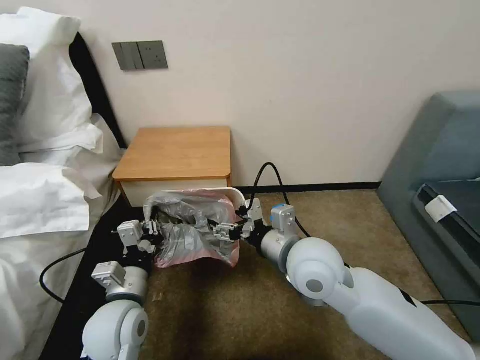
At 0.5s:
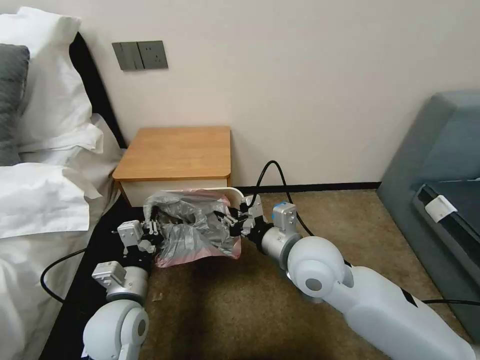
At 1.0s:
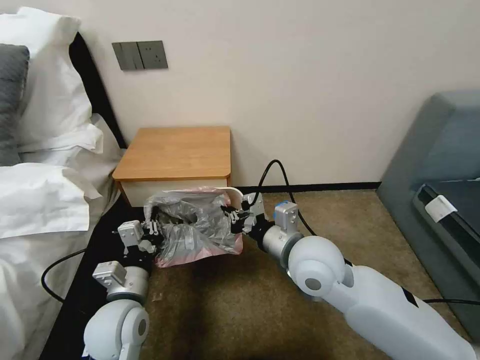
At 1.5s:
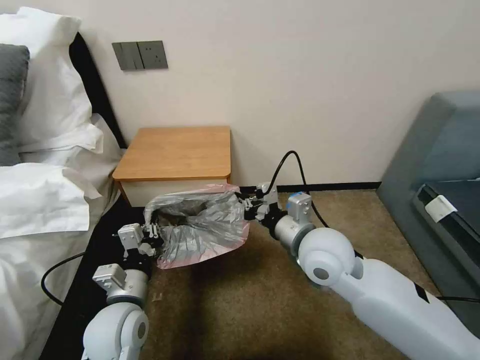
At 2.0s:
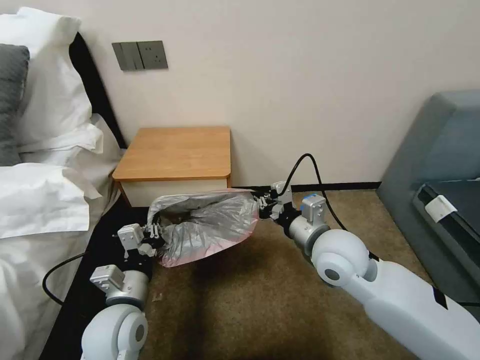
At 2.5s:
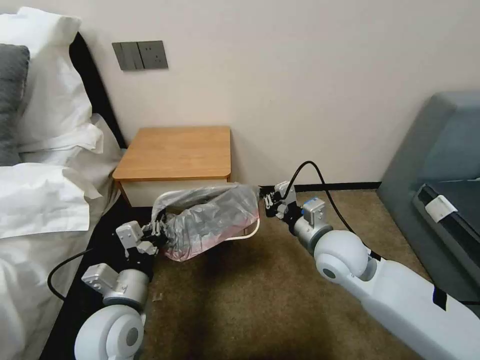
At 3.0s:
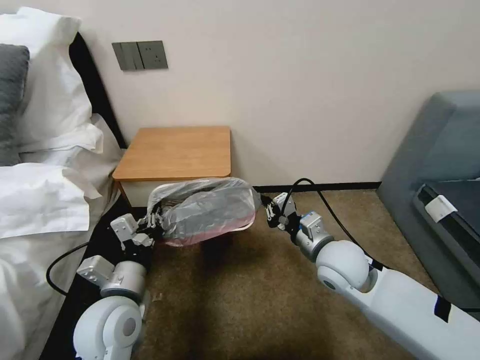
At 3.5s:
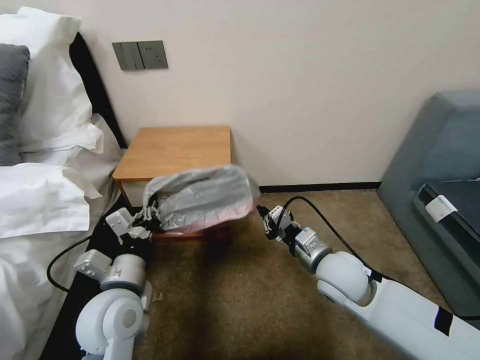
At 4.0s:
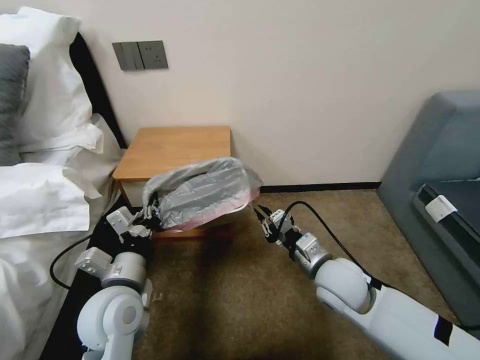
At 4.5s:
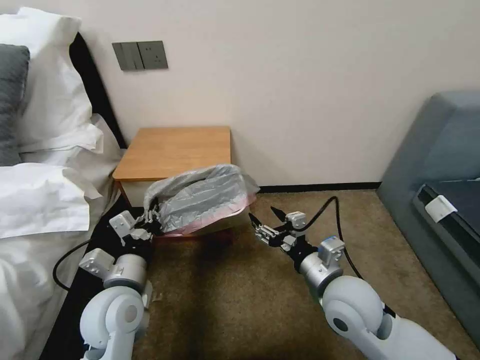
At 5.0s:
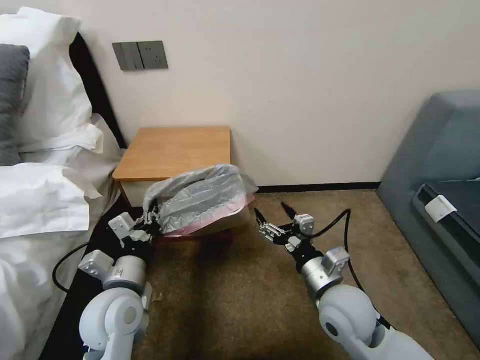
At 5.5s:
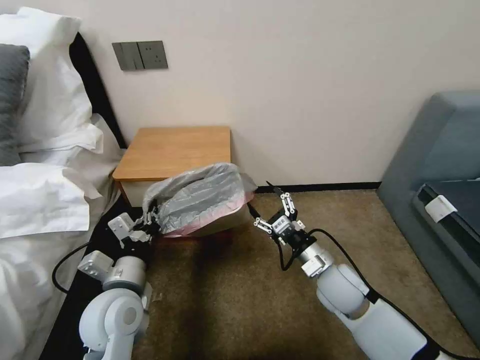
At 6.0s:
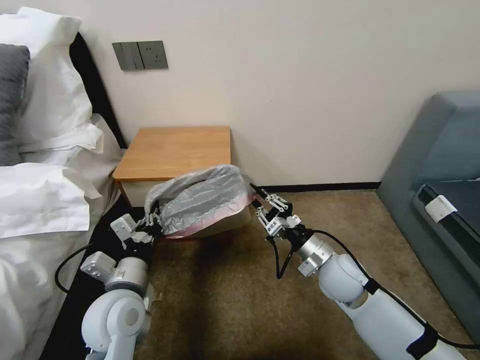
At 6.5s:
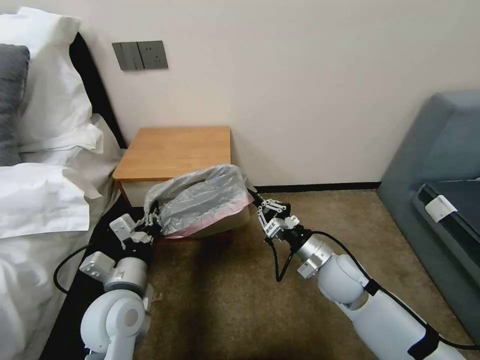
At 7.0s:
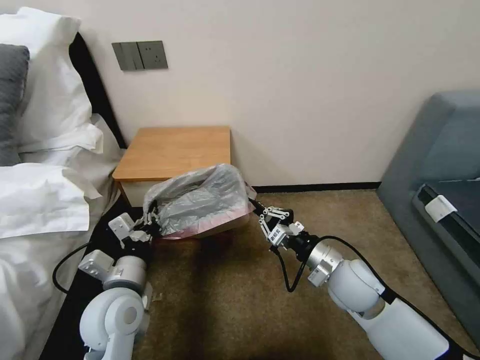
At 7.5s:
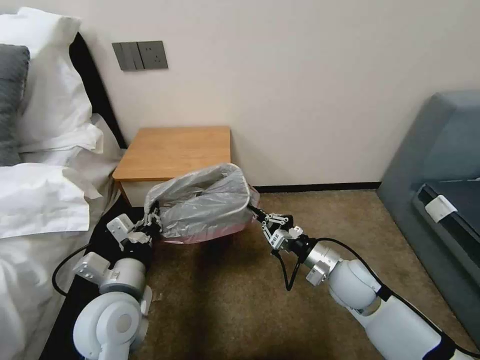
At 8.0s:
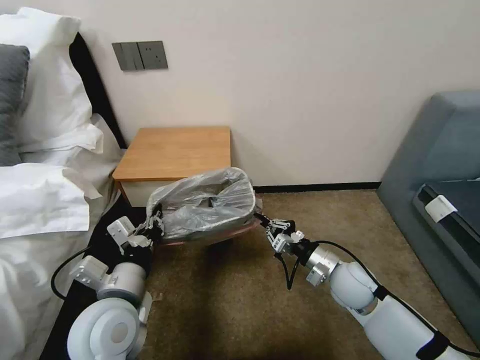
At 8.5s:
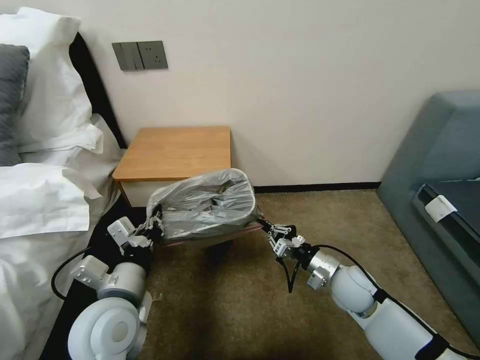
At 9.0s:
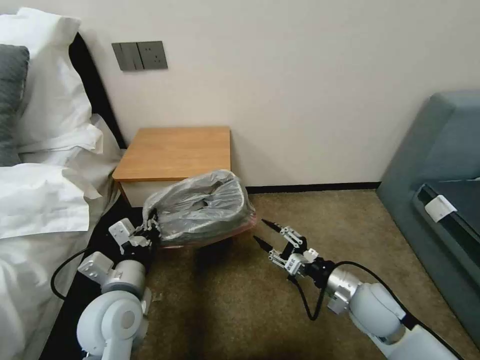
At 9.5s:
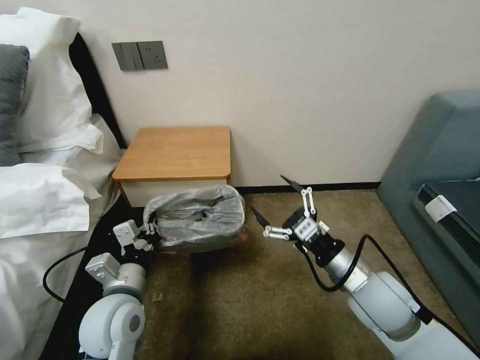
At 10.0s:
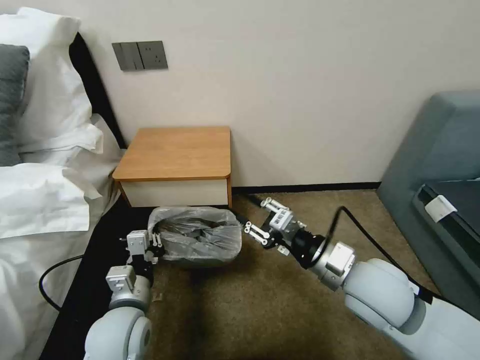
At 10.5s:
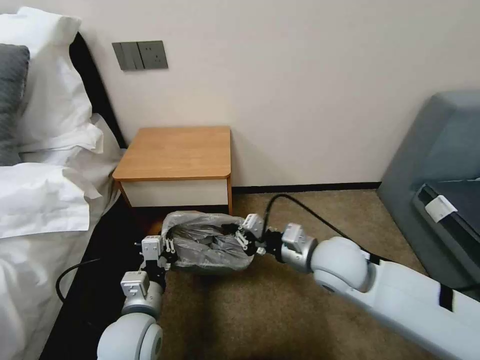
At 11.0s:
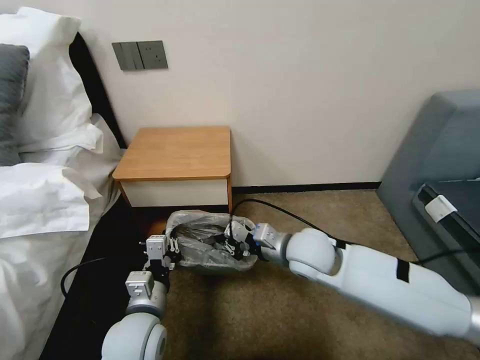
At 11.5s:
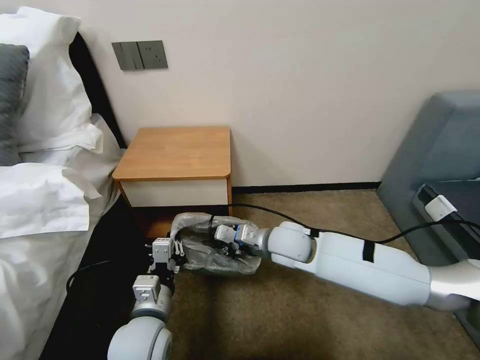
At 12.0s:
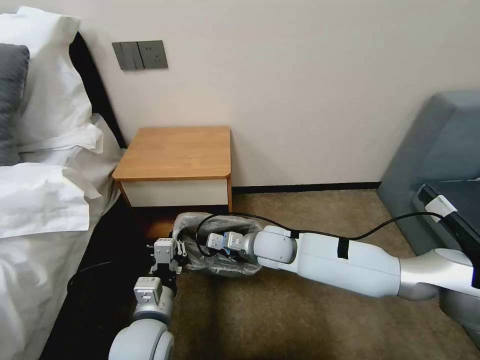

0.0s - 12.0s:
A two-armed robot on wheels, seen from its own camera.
Task of the whole recording: Pick up the garbage bag from the table and place it over the trash can.
0.0s - 2.0s: The right gripper is displaced to the right by roughly 5 cm, and closes.
2.0s - 4.0s: The right gripper heads downward, covering roughly 10 cm.
4.0s - 6.0s: The right gripper moves roughly 5 cm backward and comes back, and opens and closes again.
6.0s - 8.0s: The grippers stay close to where they were, moving slightly.
8.0s - 10.0s: The right gripper shifts about 15 cm upward and backward, and opens its fingers. Meanwhile the left gripper travels downward by approximately 5 cm.
10.0s - 12.0s: The left gripper moves approximately 5 cm. The right gripper goes some 25 cm forward, to the left and downward, and closes up.

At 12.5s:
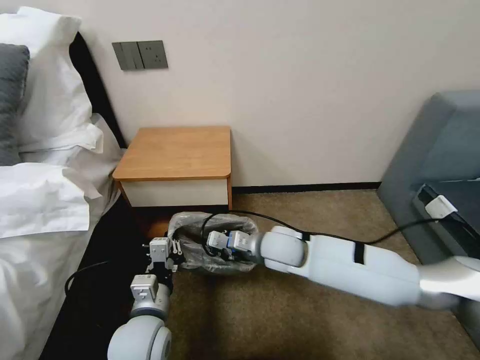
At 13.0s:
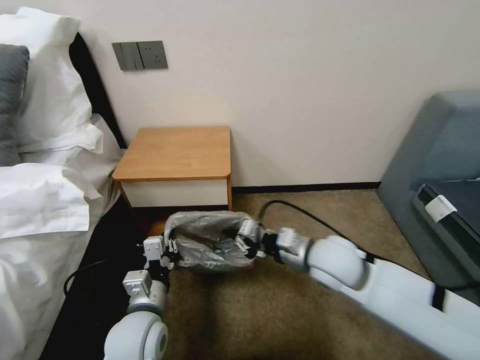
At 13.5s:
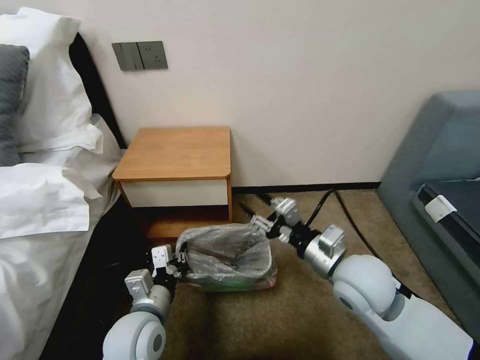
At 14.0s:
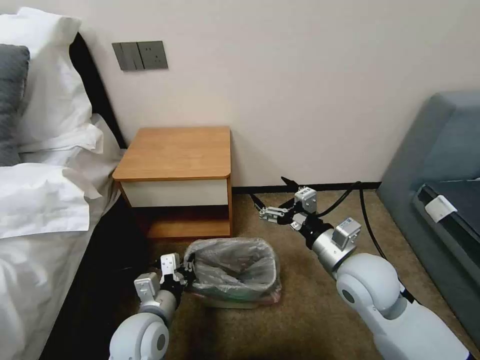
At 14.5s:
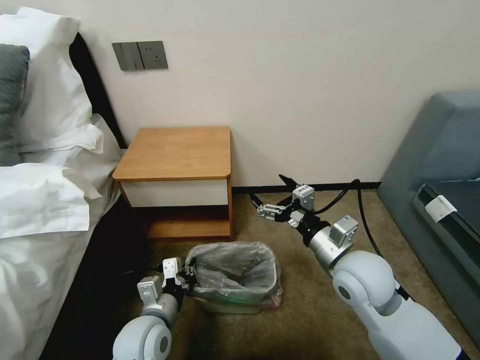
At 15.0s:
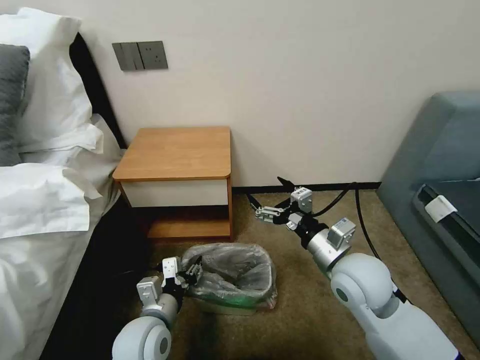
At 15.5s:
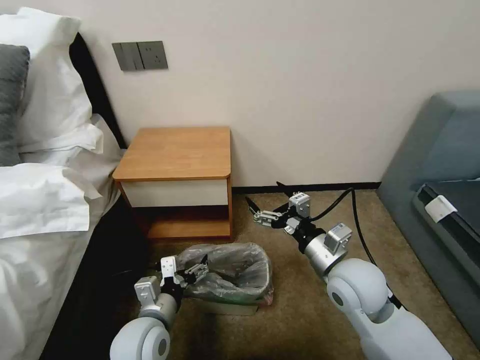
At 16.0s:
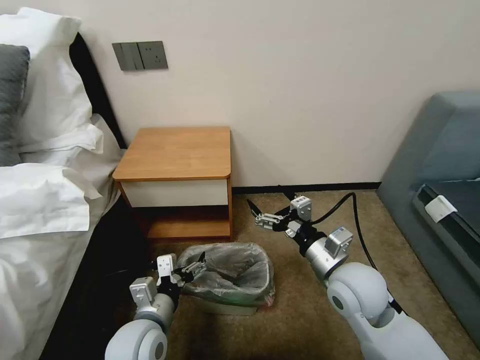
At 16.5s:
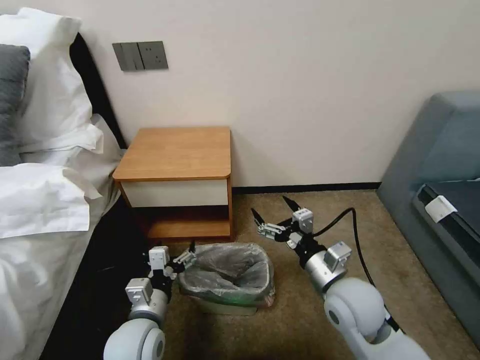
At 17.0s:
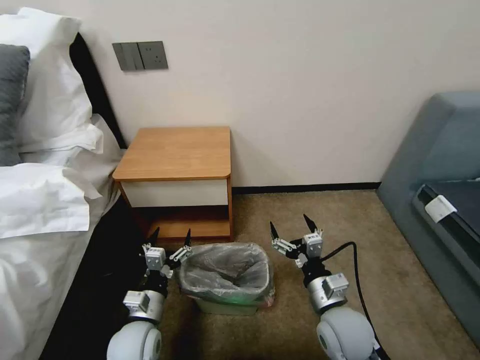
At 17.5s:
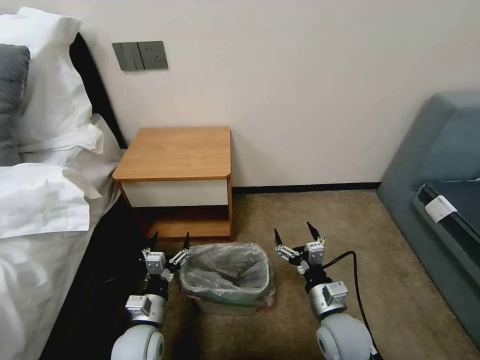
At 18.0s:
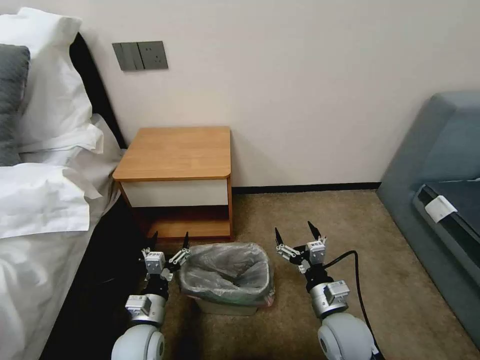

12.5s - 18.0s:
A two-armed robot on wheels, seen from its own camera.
Task of the whole recording: Pick up the garbage bag from the table and place it over the trash can.
12.5s - 14.5s: The right gripper goes about 15 cm to the right, backward and upward, and opens up.
14.5s - 16.0s: The left gripper opens its fingers.
16.0s - 18.0s: The left gripper goes about 10 cm downward. Meanwhile the right gripper goes approximately 15 cm downward and backward.

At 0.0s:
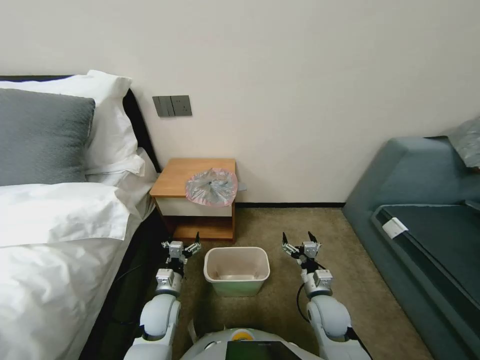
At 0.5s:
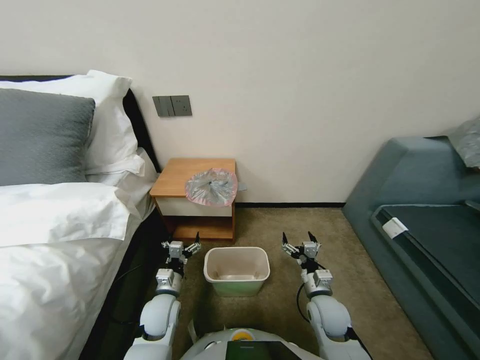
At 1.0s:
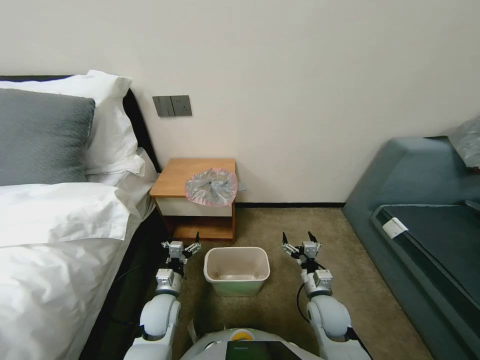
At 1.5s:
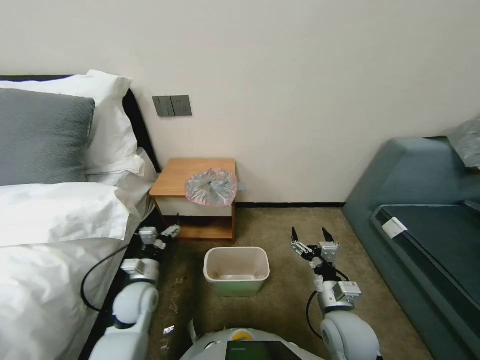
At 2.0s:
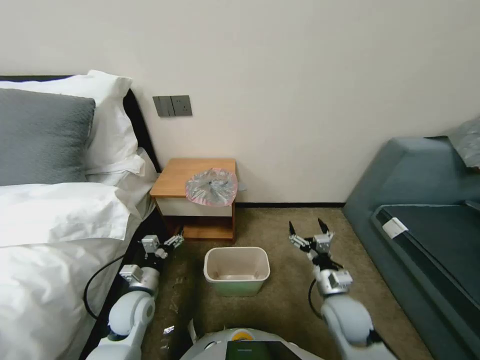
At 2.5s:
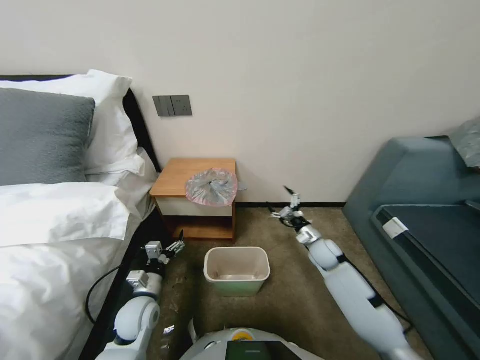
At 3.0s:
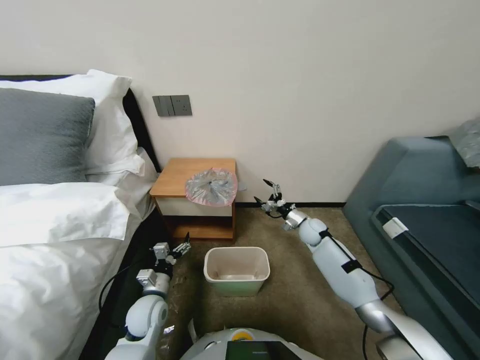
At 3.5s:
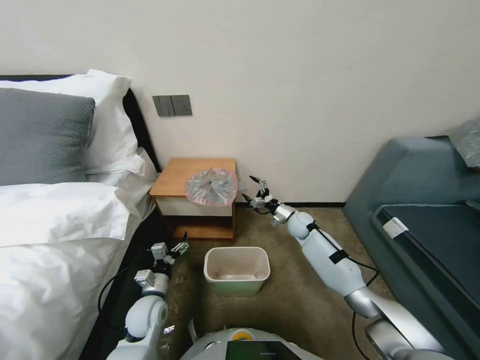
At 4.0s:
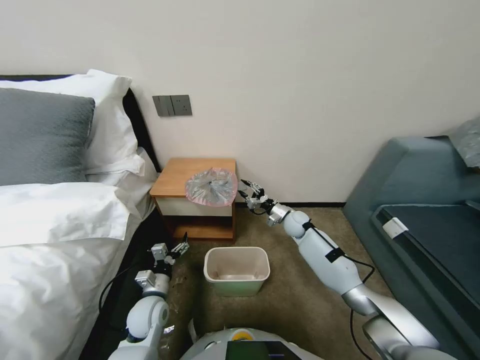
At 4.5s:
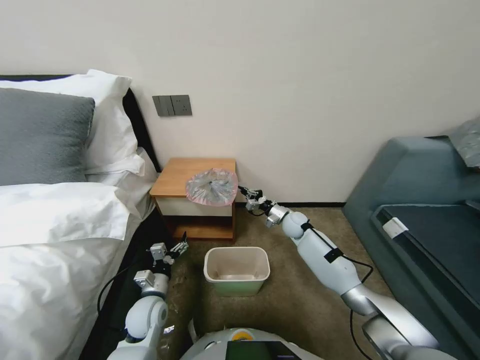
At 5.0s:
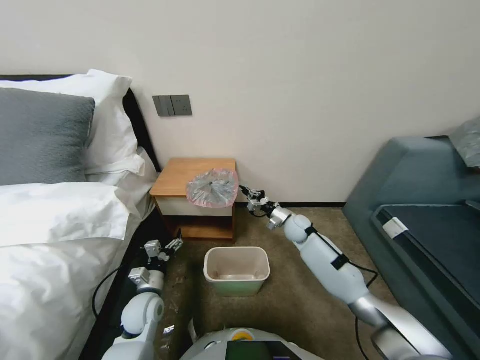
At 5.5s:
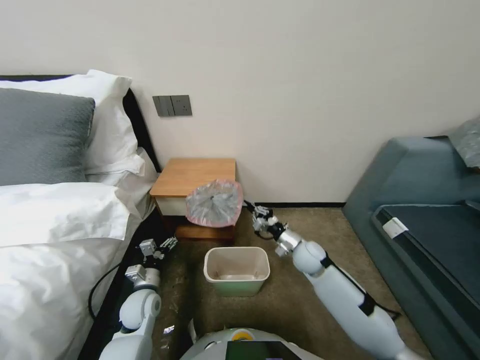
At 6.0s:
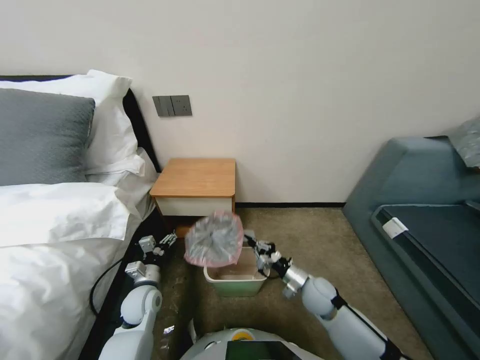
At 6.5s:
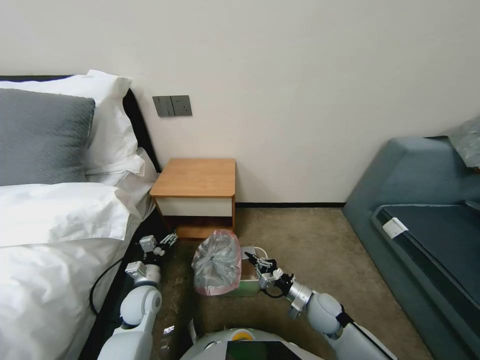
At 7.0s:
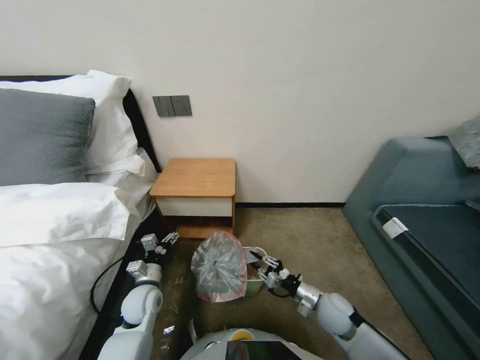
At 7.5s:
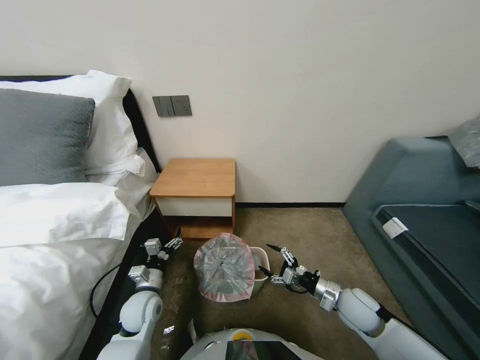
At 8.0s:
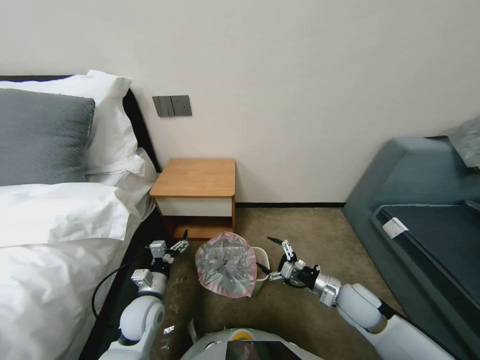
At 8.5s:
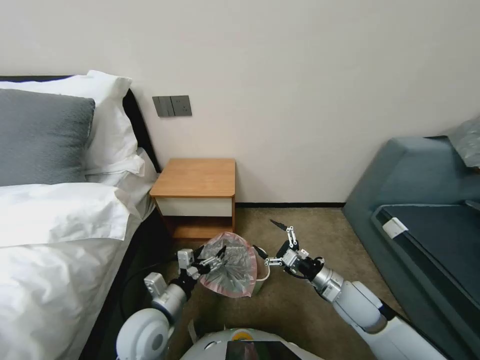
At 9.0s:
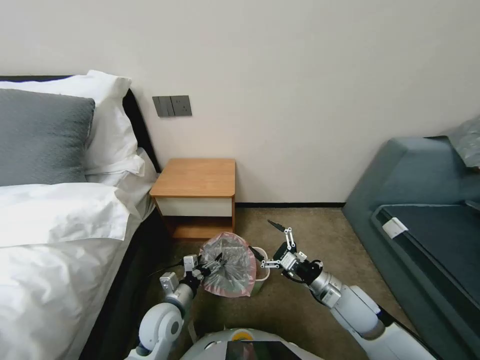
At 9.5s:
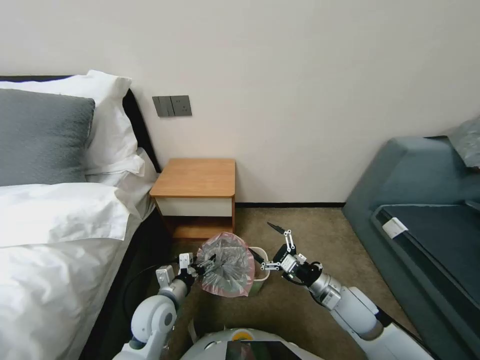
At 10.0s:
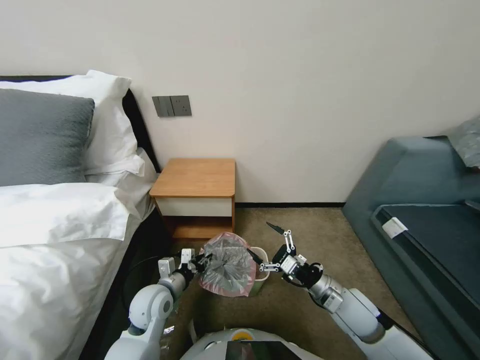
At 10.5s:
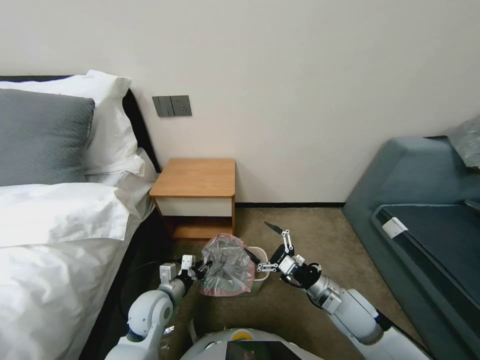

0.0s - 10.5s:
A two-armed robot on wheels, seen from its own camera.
Task of the whole recording: Pick up the garbage bag from the table and place it over the trash can.
2.0s - 4.0s: The right gripper goes some 30 cm forward, and closes its fingers.
4.0s - 6.5s: The right gripper travels backward by approximately 25 cm, and closes.
6.5s - 8.5s: The left gripper travels upward, backward and to the right by roughly 15 cm; the right gripper heads upward, covering roughly 10 cm, and opens.
8.5s - 10.5s: The left gripper goes some 5 cm downward, and closes up.
